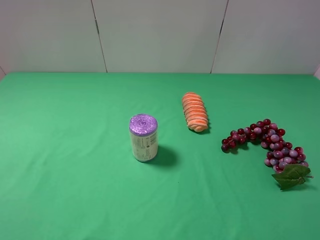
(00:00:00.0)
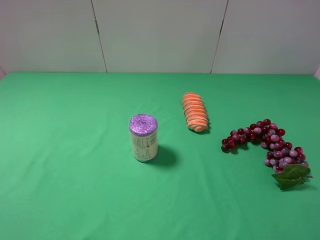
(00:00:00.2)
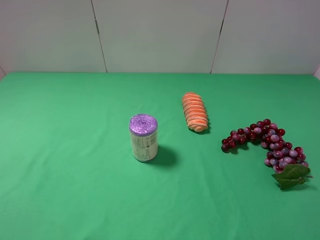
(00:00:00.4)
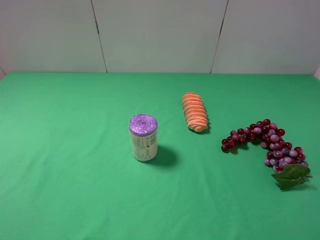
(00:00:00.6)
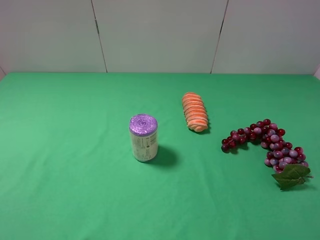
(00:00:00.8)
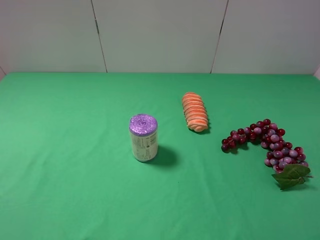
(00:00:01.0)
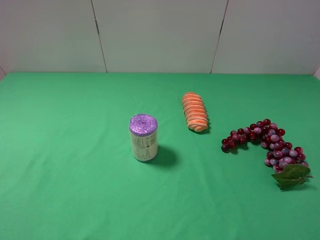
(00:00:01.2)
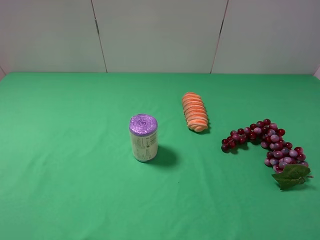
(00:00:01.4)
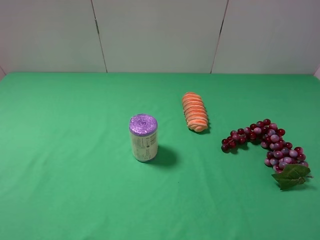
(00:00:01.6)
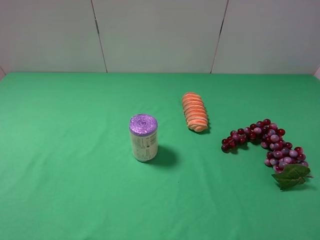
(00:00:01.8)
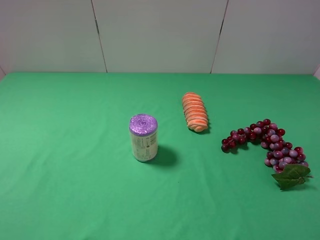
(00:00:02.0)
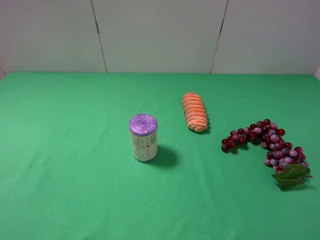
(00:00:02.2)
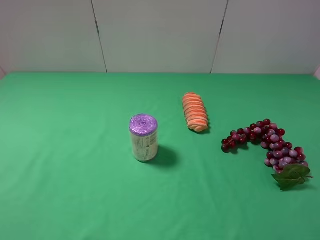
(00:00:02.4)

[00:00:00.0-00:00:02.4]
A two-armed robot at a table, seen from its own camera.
Task of the whole recording: use the left gripper to pick up the item and transfer it from the left gripper to the right gripper.
00:00:01.2 to 00:00:02.4: Both grippers stay about where they are.
